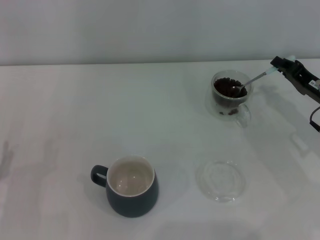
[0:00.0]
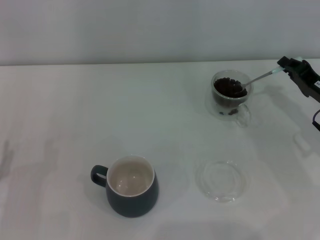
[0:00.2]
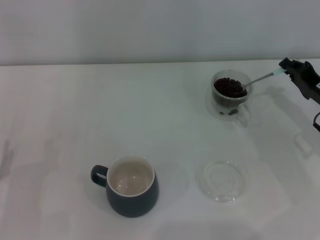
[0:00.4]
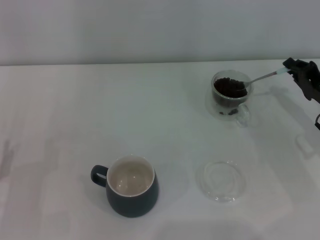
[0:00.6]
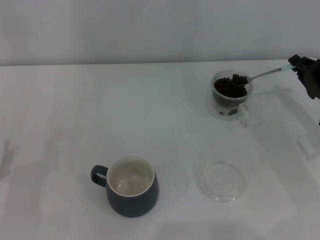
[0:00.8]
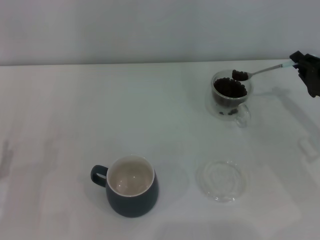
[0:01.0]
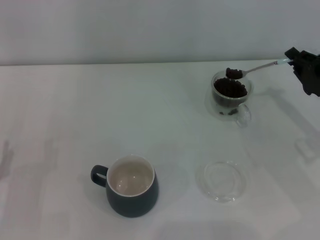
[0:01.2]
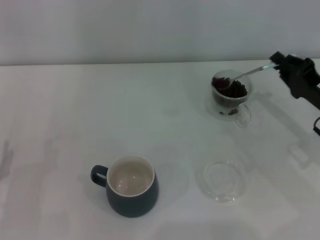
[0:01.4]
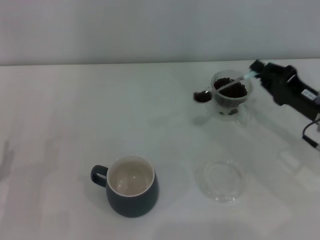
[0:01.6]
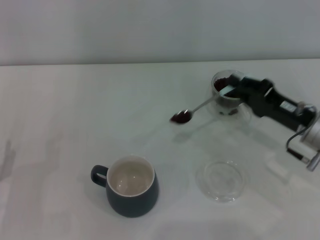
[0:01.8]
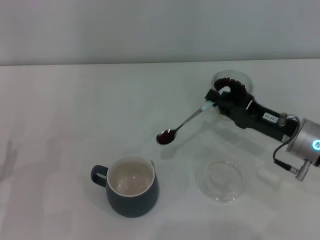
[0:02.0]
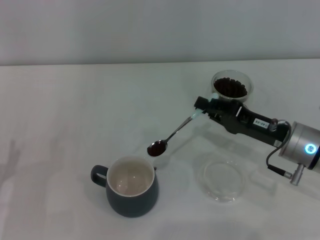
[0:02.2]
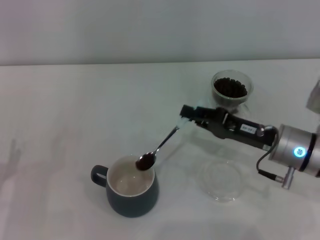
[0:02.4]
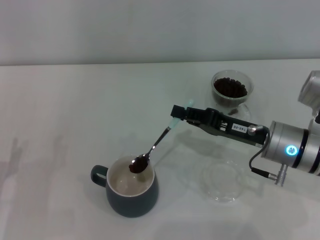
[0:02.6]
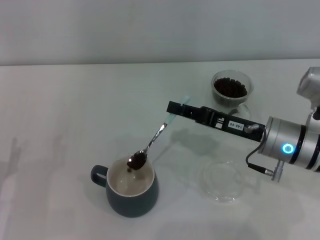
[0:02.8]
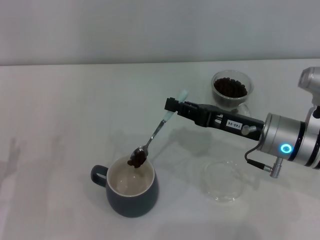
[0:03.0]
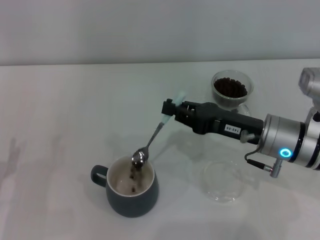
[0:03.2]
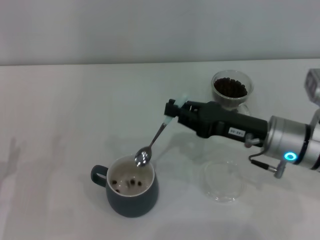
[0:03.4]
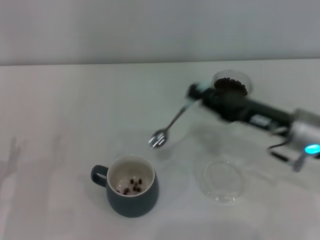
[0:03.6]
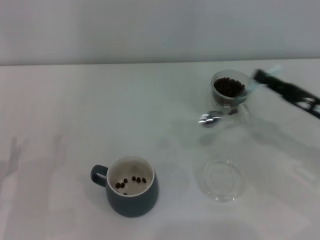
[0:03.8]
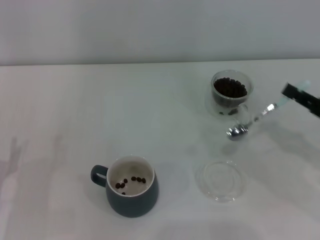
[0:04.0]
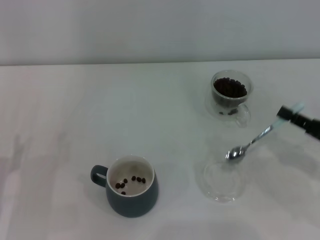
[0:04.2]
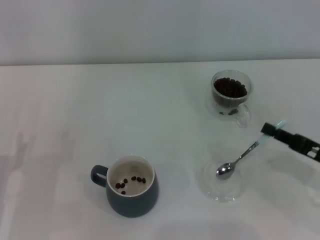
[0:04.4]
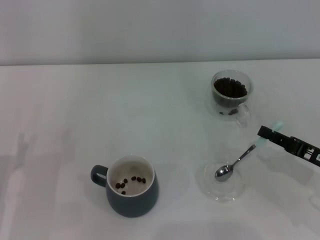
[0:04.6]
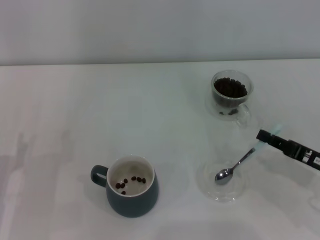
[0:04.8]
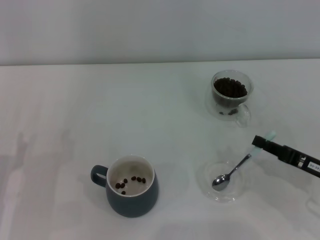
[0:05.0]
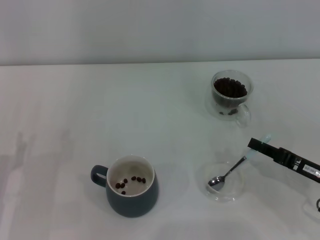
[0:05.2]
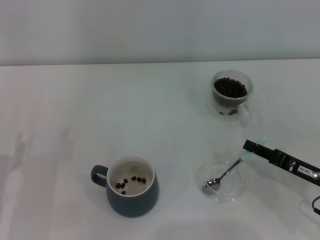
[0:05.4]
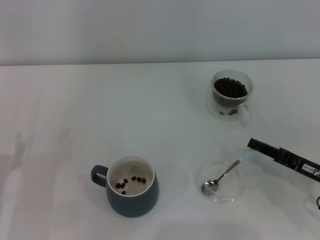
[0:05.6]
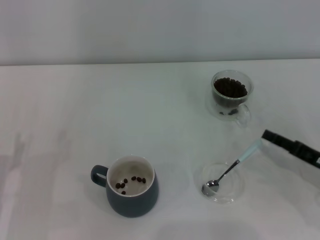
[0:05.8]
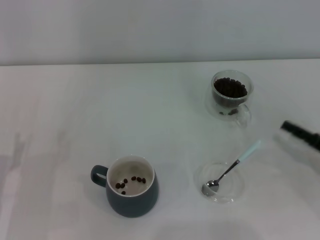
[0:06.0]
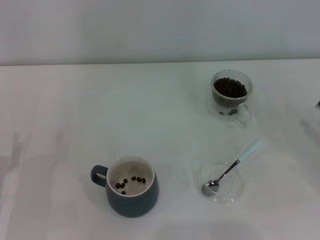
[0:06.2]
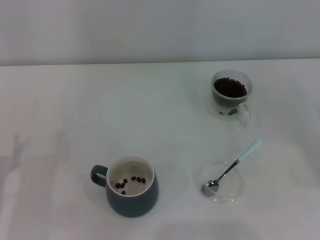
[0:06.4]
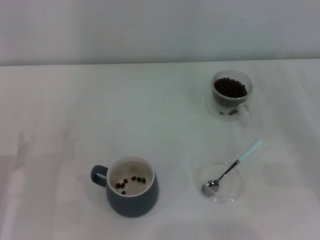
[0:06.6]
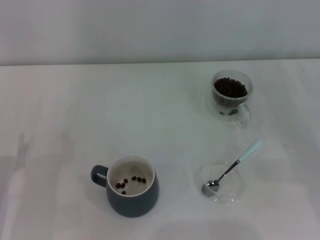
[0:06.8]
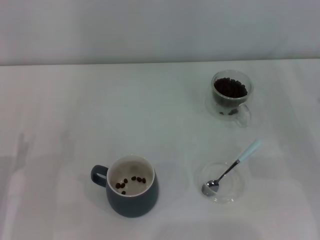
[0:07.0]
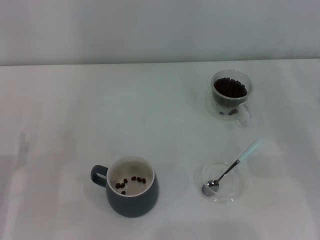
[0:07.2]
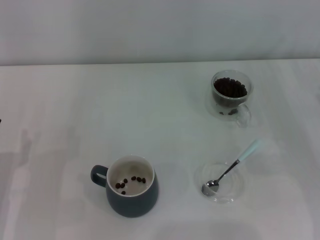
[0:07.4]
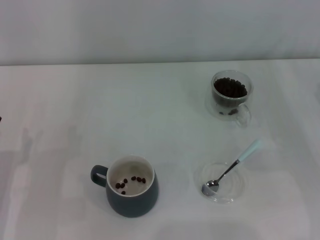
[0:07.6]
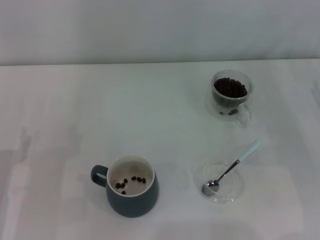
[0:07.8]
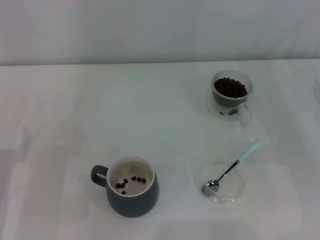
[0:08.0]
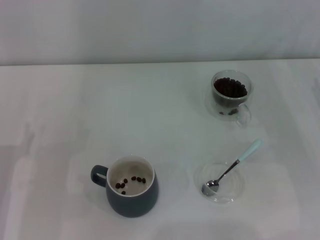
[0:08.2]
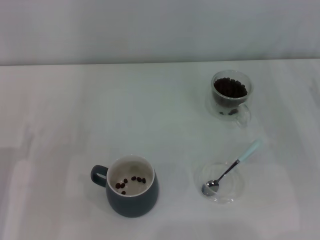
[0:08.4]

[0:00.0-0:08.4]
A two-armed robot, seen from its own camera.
Task of the whole recording: Use a blue spoon to take out the coffee beans from the glass and pour them into the gray cup.
Step, 0:00.0 to 0:03.2: Scoop a spoonful of beans into the cup with the right gripper.
Step, 0:03.4 to 0:05.8: Place the spoon back in its original place with the right gripper.
0:00.0 to 0:01.4: The grippers stay close to where they were, moving slightly.
0:01.4 to 0:02.8: The right gripper heads to the left, covering some 10 cm.
0:02.8 to 0:04.2: The right gripper travels to the right and backward by about 15 cm.
0:04.2 to 0:05.6: The right gripper ends up about 5 cm from where it was.
0:05.6 to 0:07.0: The right gripper is displaced to the right by about 5 cm, and opens up.
